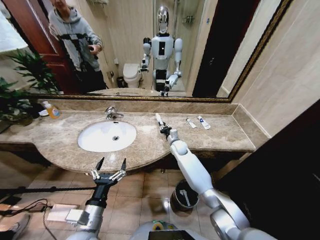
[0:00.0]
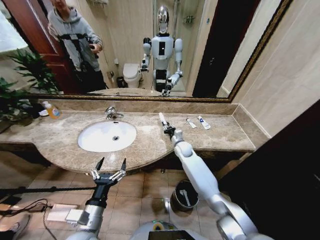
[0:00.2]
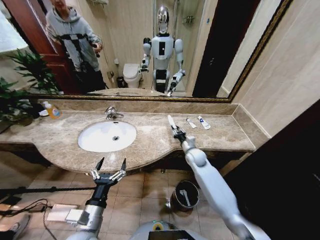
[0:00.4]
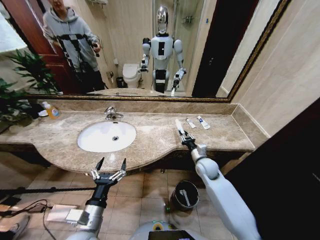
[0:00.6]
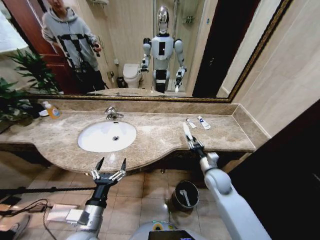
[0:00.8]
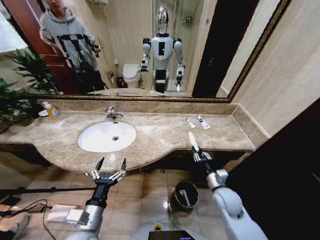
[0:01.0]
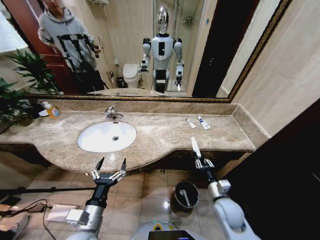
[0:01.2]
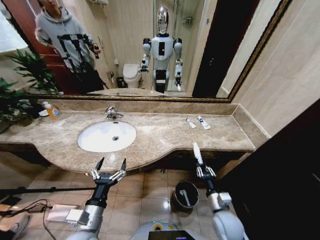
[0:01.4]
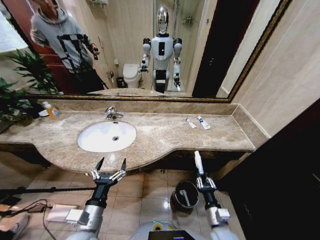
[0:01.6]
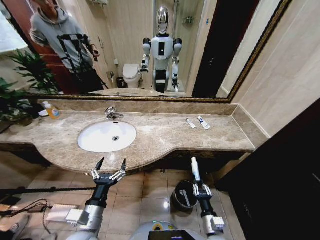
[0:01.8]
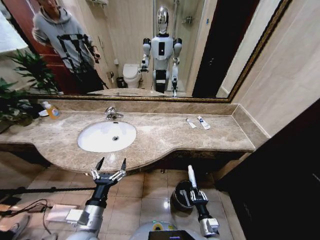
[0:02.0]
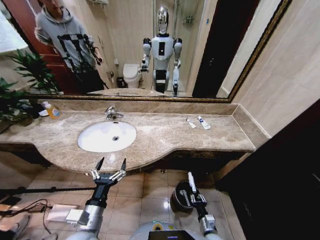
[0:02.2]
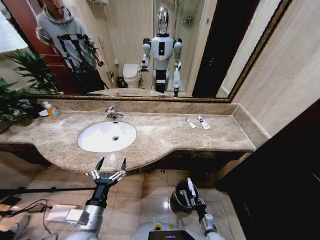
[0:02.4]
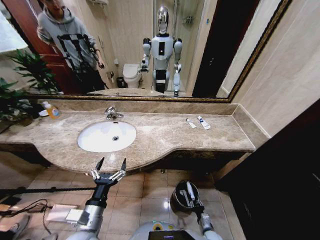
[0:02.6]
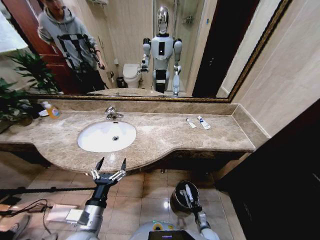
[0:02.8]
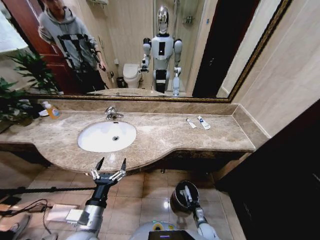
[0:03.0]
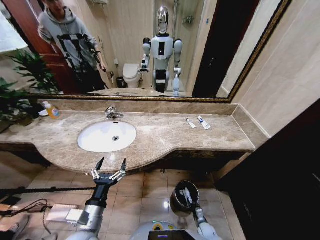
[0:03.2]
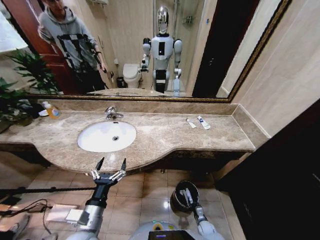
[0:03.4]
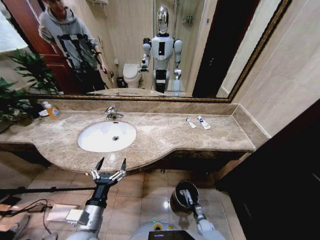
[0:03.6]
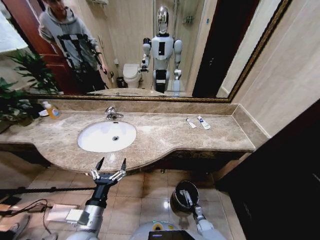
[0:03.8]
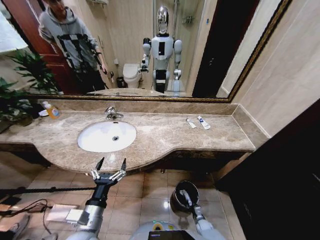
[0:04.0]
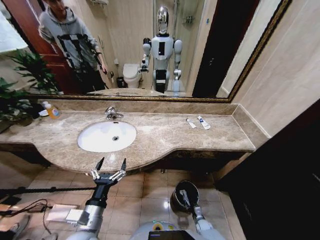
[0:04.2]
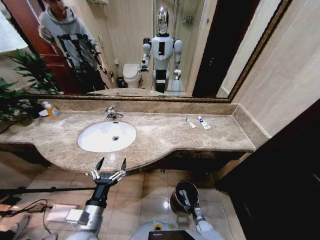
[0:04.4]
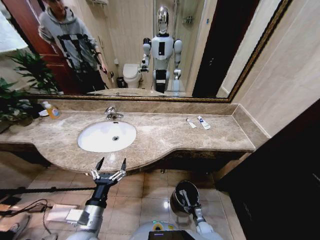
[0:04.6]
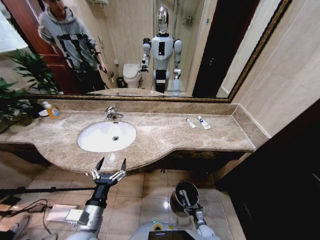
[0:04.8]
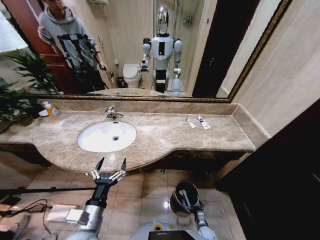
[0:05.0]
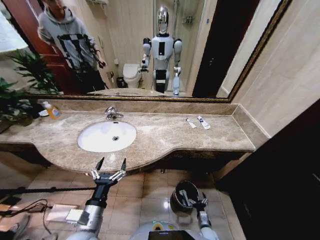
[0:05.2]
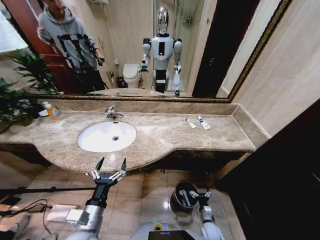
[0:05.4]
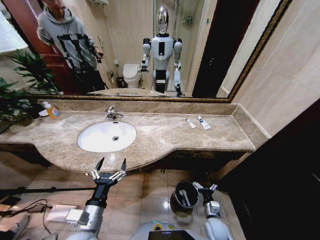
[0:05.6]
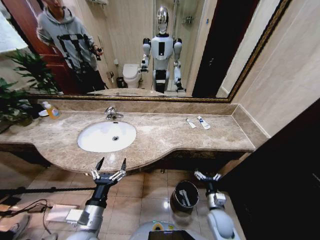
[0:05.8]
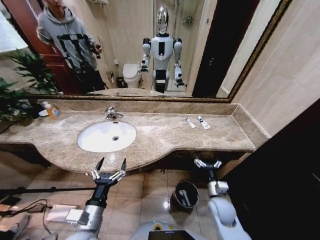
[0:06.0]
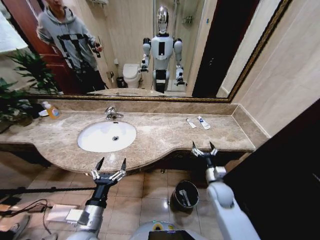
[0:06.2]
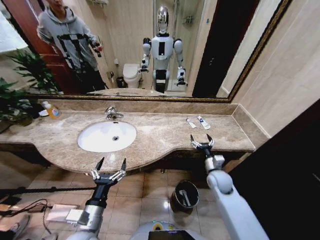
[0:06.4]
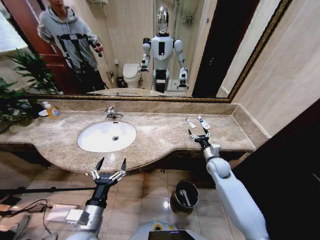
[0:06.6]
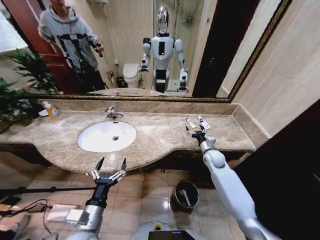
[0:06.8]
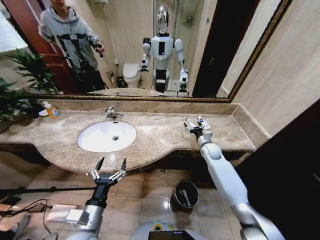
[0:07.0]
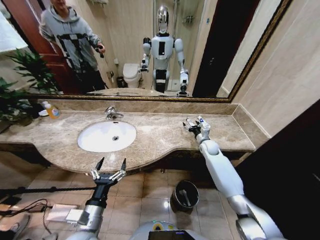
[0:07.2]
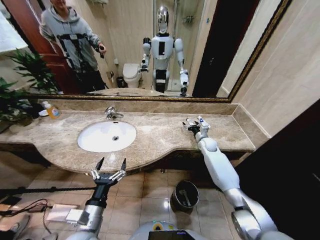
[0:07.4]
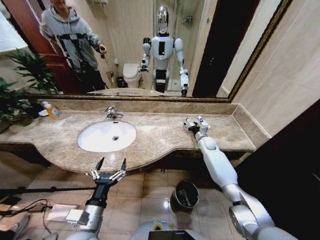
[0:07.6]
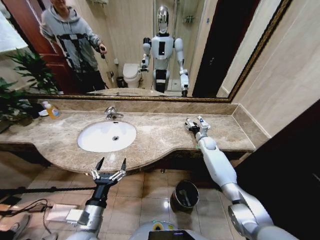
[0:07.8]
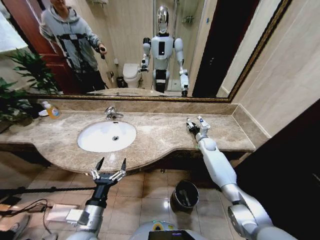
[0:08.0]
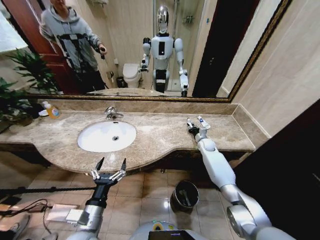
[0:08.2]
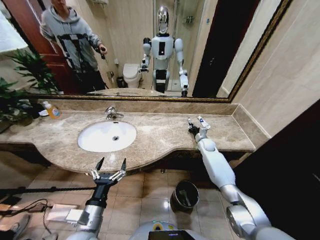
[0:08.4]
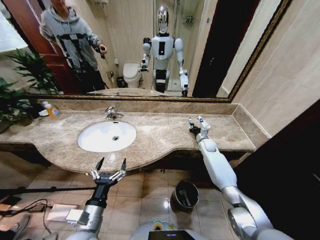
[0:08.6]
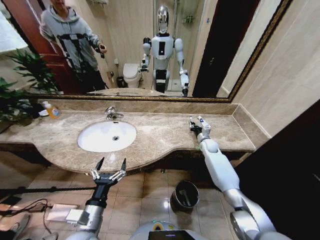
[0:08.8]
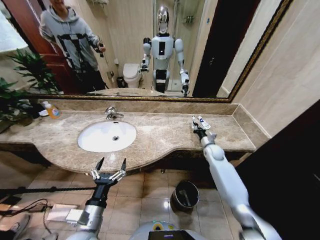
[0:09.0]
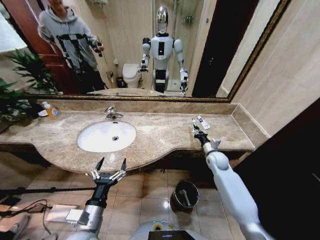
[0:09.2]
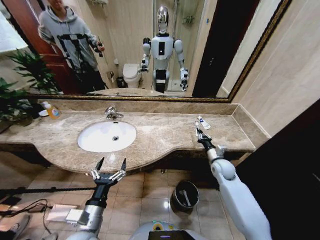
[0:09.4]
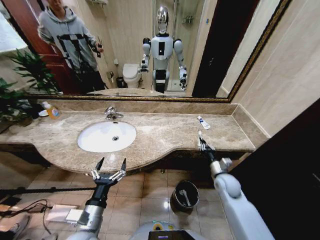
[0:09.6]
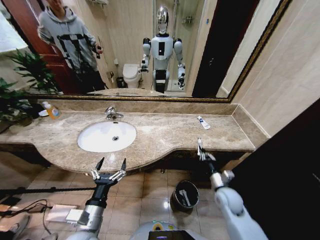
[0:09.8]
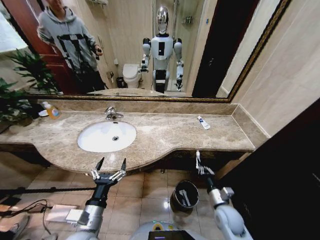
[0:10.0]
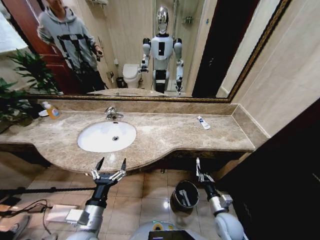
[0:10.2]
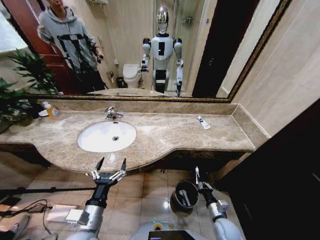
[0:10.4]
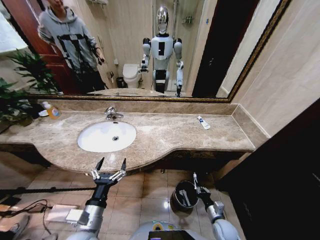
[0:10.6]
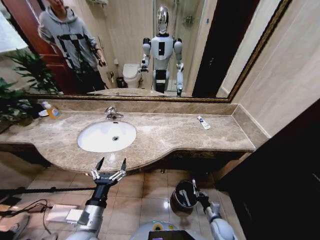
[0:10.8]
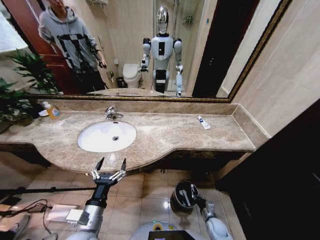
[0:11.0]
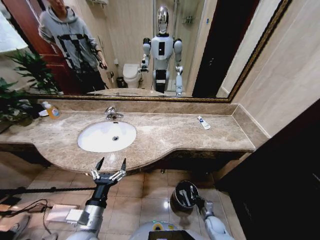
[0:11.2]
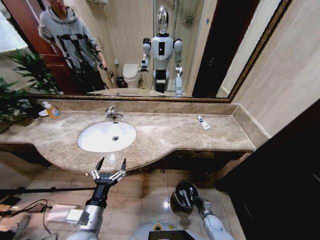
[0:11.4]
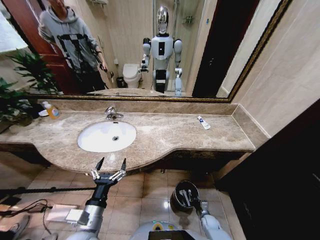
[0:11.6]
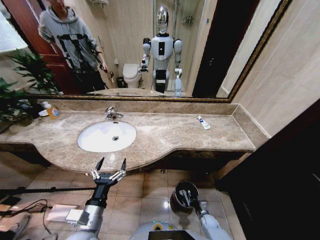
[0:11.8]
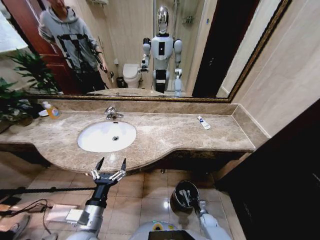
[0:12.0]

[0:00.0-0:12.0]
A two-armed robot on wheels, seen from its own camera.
Task of the whole recording: Pick up the trash from the sink and place it in the trash bin.
0:00.0 to 0:01.6: The right gripper is displaced backward by some 40 cm.
0:01.6 to 0:03.0: The right gripper shifts approximately 25 cm downward.
0:03.0 to 0:04.4: The right gripper opens.
0:04.4 to 0:06.0: The right gripper heads upward, covering approximately 30 cm.
0:06.0 to 0:07.6: The right gripper travels forward by approximately 30 cm.
0:07.6 to 0:09.0: The right gripper shifts roughly 5 cm backward, and closes up.
0:09.0 to 0:10.4: The right gripper shifts roughly 35 cm backward and downward.
0:10.4 to 0:12.0: The right gripper is displaced downward by some 20 cm.

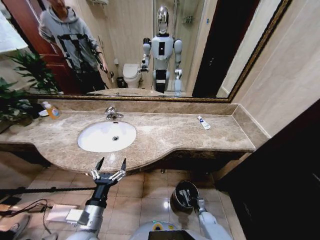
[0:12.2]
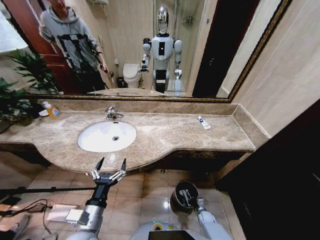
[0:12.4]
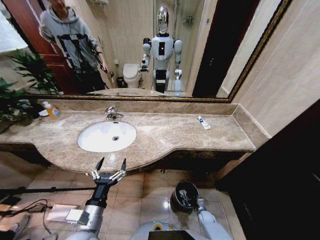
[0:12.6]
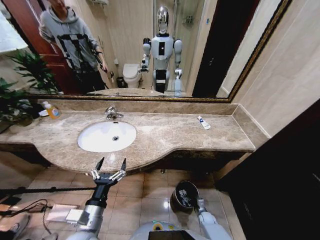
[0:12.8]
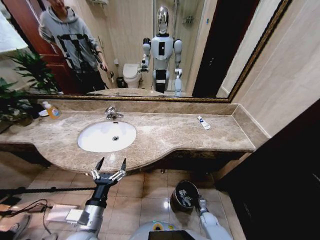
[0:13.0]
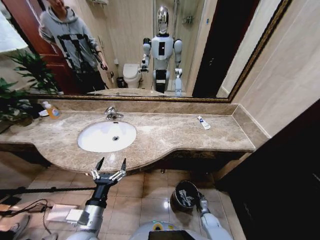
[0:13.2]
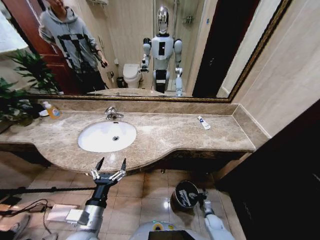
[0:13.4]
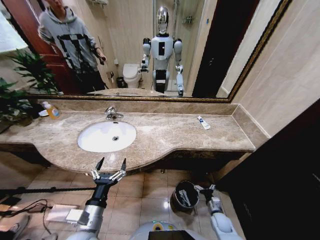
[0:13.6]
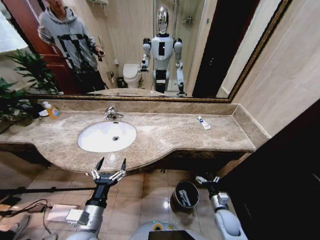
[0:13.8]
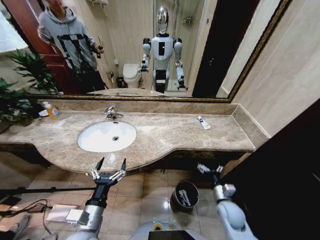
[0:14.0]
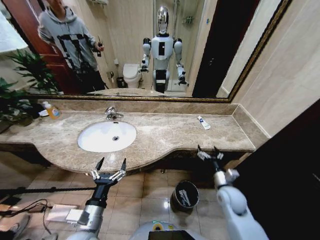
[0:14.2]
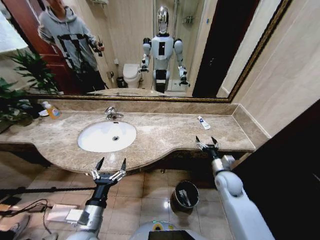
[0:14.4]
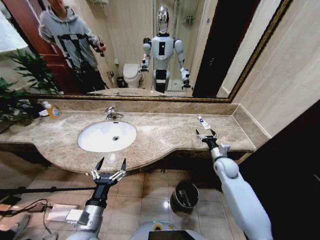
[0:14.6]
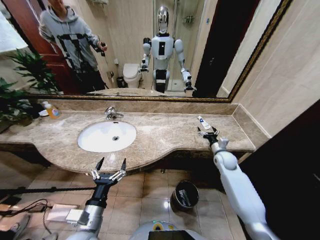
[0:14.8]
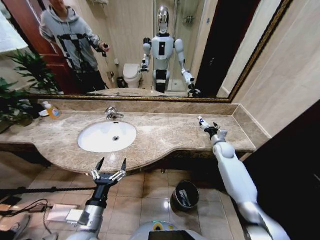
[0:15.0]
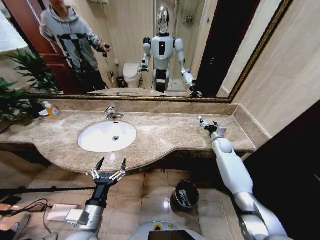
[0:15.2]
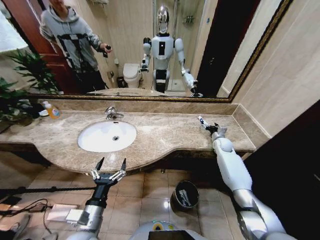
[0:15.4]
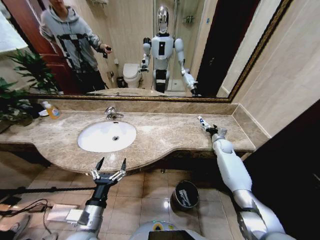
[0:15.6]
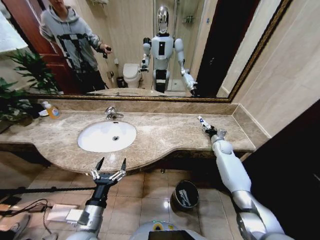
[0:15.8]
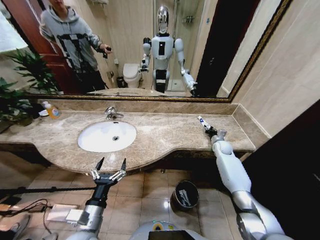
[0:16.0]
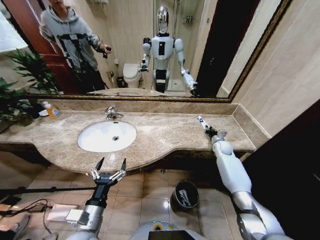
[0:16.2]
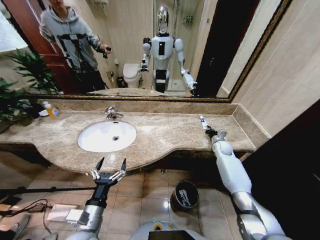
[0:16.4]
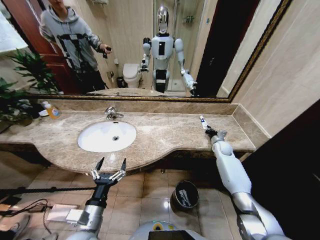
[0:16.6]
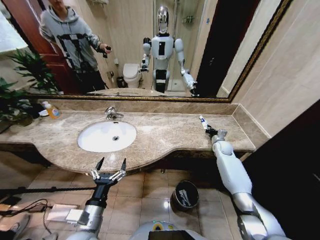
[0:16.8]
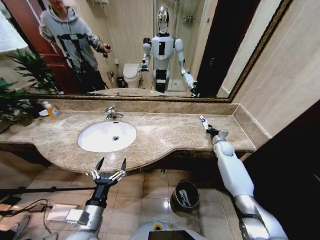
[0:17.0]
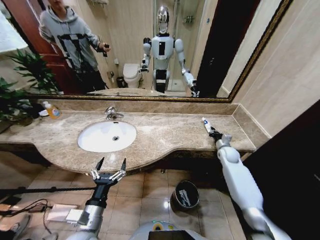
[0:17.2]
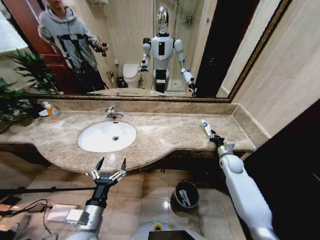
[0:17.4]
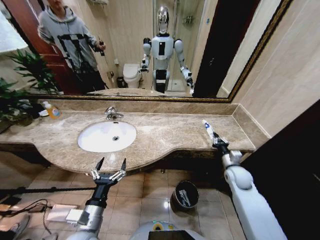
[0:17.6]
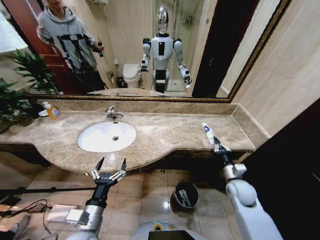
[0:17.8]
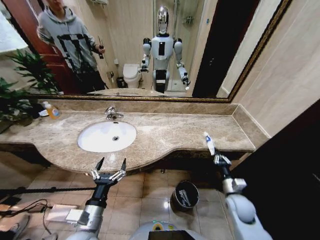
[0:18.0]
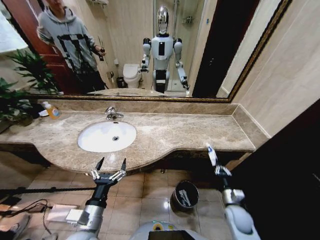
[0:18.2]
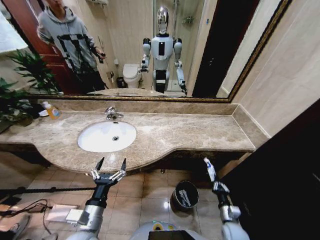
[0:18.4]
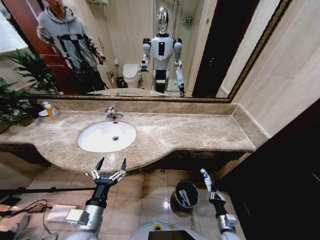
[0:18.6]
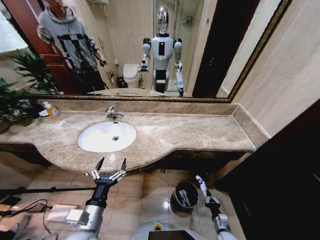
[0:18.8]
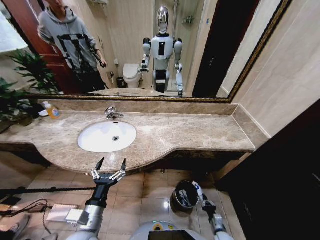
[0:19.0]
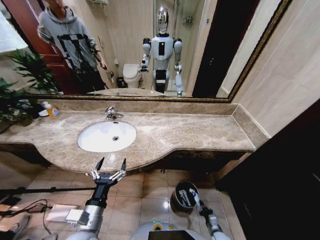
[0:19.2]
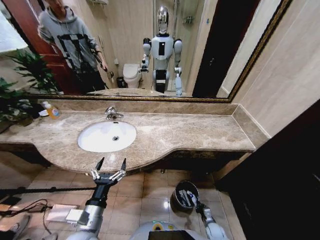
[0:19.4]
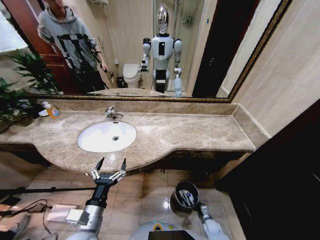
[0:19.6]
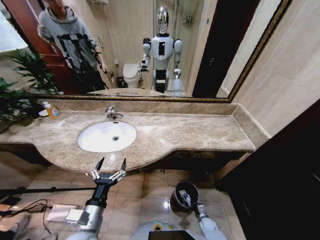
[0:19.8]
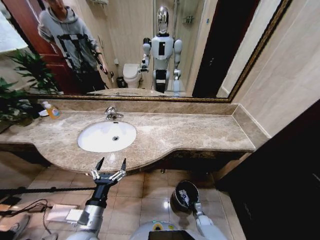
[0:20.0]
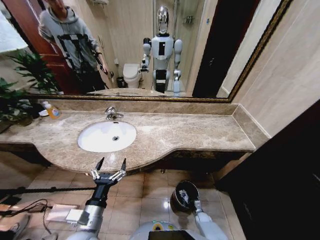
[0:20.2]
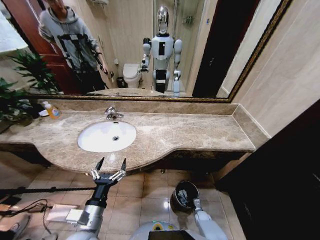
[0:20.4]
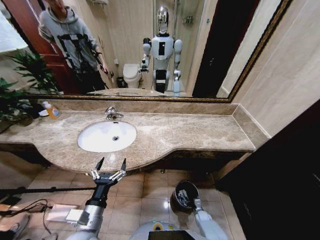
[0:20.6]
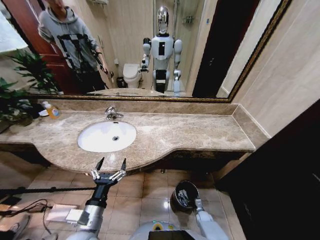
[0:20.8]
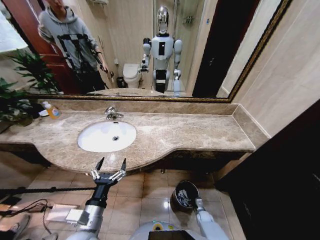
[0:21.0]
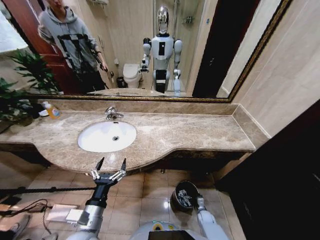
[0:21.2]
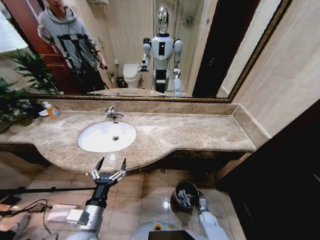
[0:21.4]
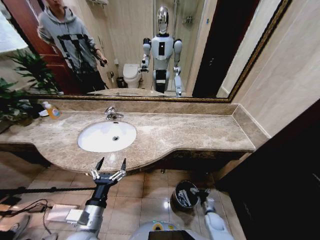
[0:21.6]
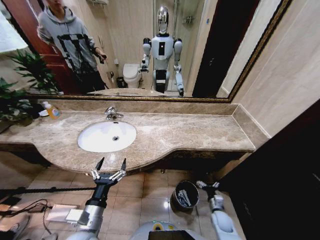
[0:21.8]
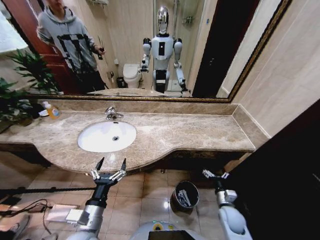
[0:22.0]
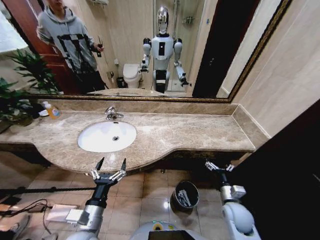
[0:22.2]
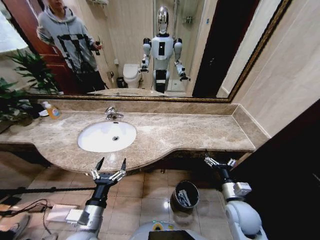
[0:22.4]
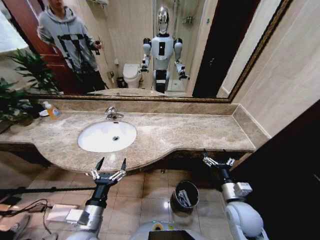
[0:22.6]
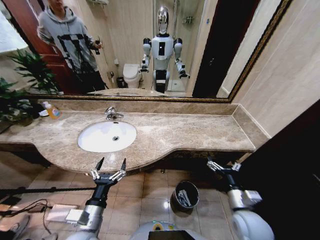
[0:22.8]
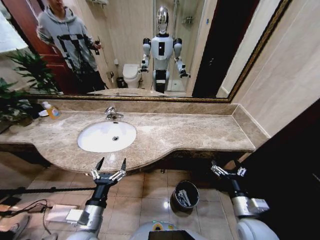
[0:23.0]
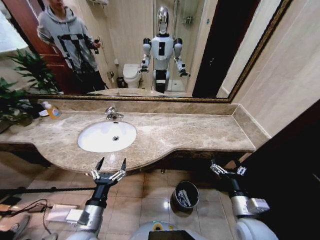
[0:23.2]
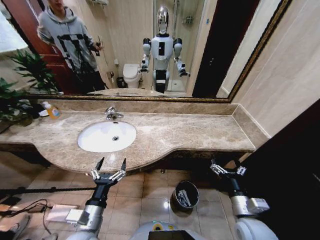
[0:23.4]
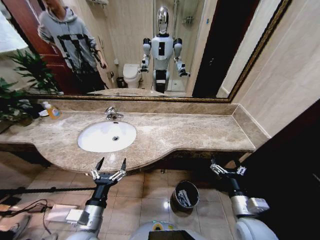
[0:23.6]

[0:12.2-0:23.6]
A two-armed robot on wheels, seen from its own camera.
Task of the whole recording: Pick up the trash from the sink and place it in the trash bin.
0:12.2 to 0:13.6: The right gripper goes approximately 10 cm upward, and opens up.
0:13.6 to 0:15.0: The right gripper travels forward and upward by roughly 40 cm.
0:15.0 to 0:16.4: The right gripper closes up.
0:16.4 to 0:17.8: The right gripper shifts about 25 cm backward.
0:17.8 to 0:19.4: The right gripper travels downward by some 35 cm.
0:19.4 to 0:20.8: The right gripper is displaced forward by about 5 cm, and opens its fingers.
0:20.8 to 0:22.2: The right gripper is displaced upward by approximately 35 cm, and opens its fingers.
0:22.2 to 0:23.6: The right gripper heads upward and backward, covering roughly 10 cm.
